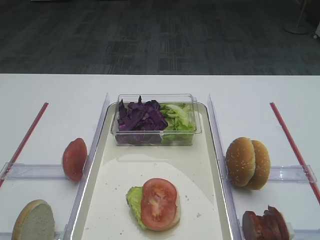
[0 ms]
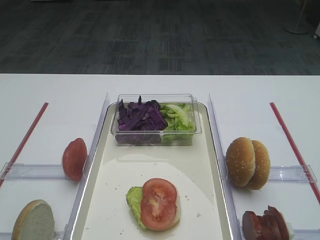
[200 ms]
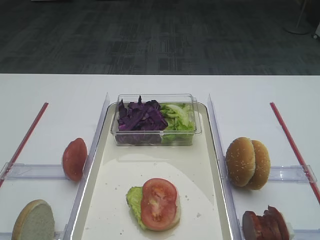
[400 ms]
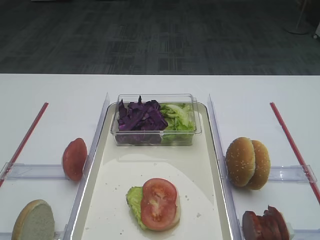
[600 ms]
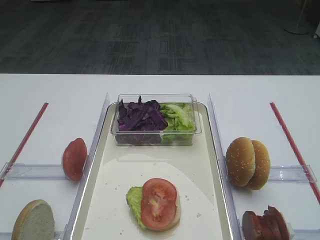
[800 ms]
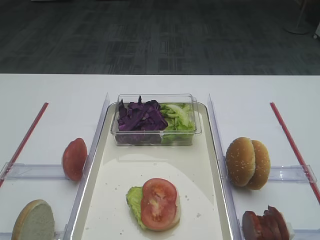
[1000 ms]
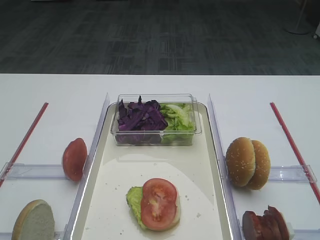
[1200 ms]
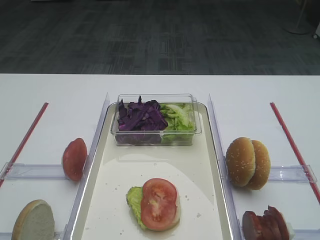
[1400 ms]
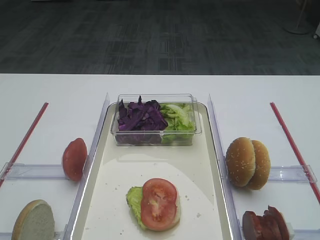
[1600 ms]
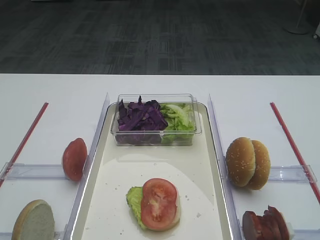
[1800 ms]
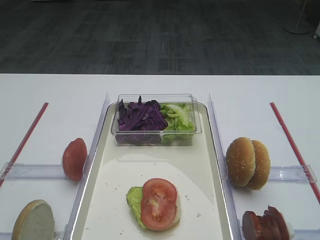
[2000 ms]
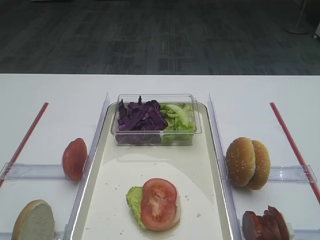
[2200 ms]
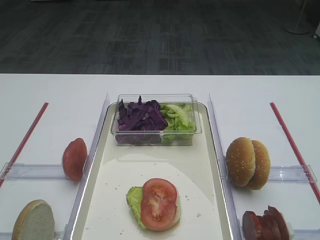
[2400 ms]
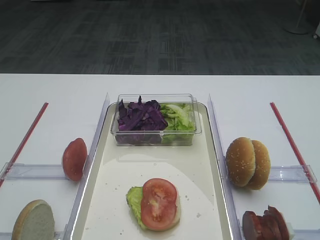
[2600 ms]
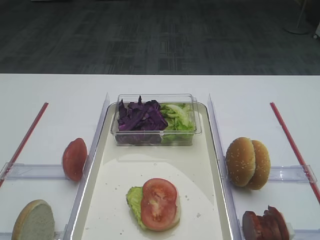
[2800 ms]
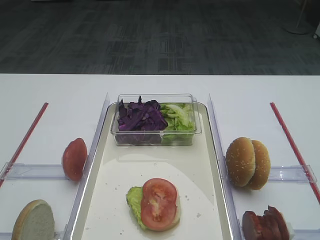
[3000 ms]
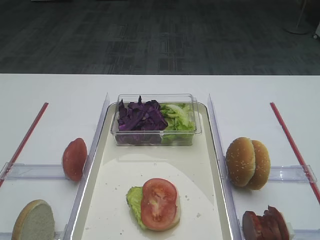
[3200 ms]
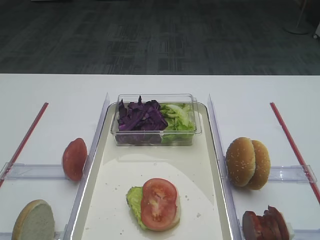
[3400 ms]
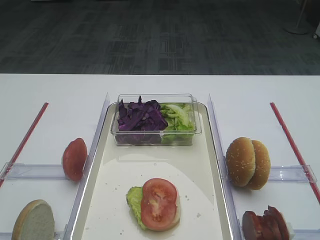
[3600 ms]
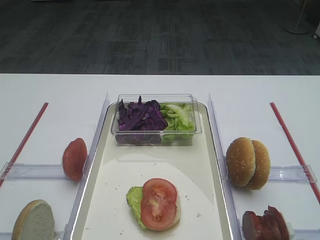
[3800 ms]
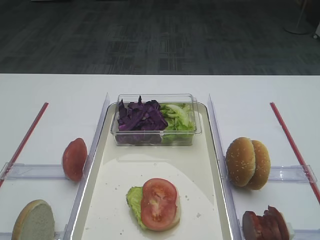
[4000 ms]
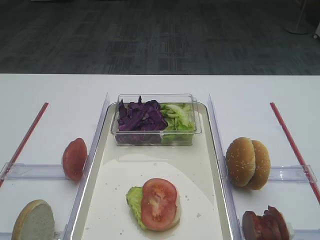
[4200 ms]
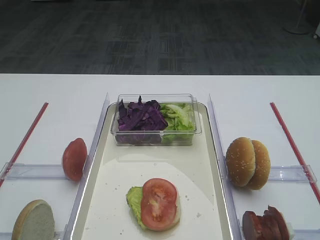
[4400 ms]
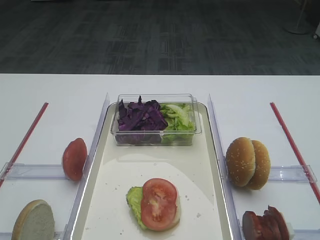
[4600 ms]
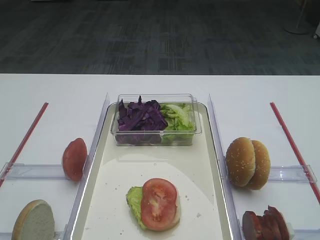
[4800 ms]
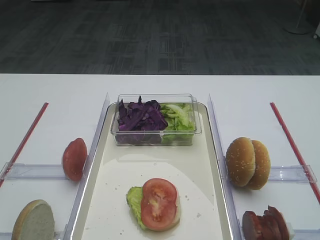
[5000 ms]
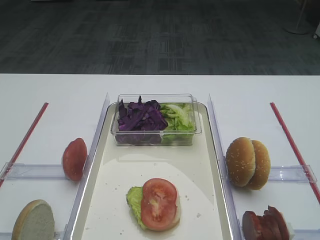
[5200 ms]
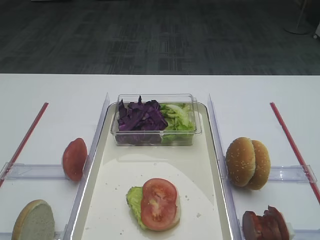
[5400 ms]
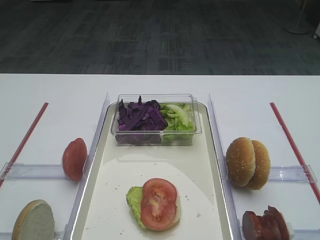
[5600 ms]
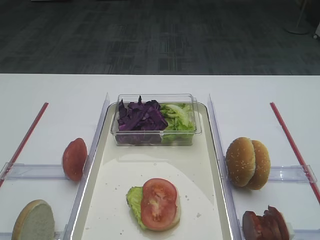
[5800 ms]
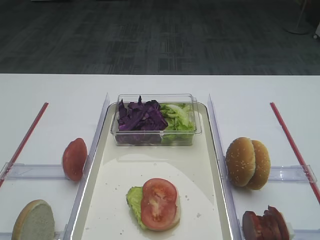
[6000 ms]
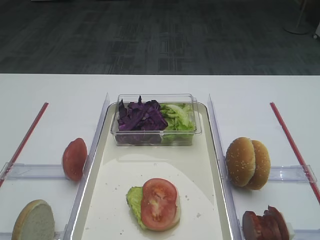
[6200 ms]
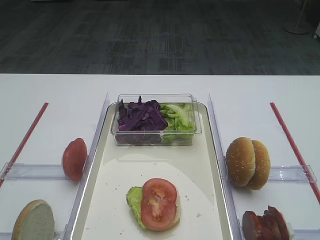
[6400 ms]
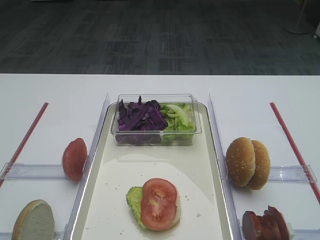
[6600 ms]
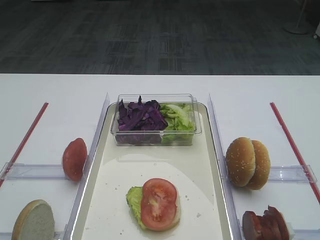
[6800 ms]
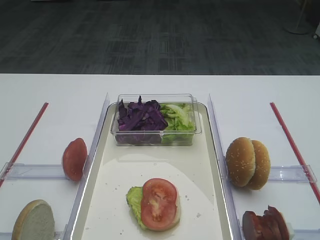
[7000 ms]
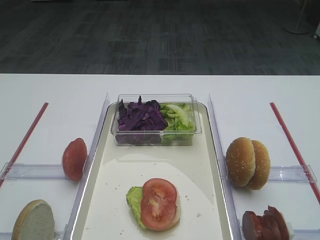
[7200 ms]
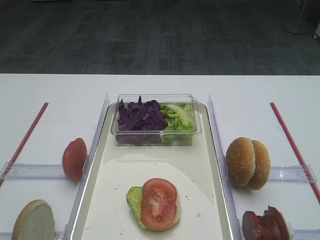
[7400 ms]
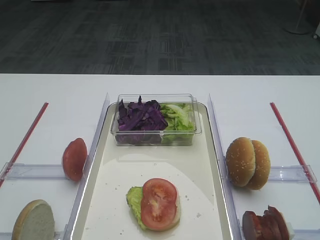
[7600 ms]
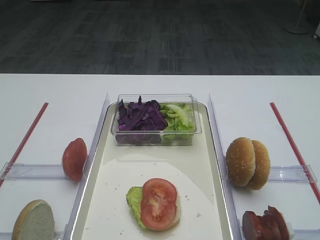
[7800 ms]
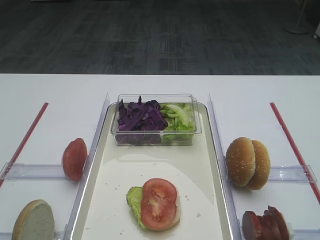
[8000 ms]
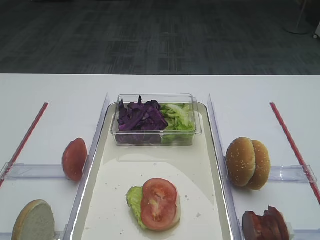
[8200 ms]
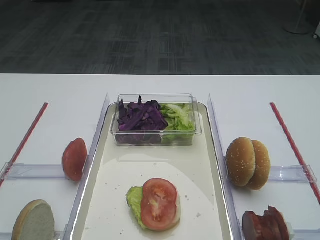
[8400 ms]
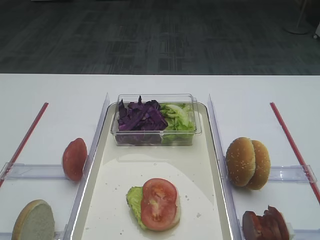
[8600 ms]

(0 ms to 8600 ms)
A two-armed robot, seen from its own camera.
0 ms - 8600 ms: The two grippers keep their place.

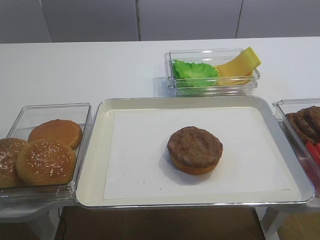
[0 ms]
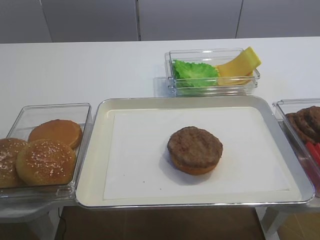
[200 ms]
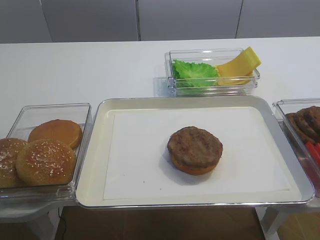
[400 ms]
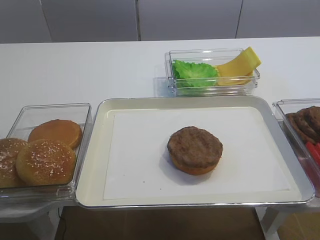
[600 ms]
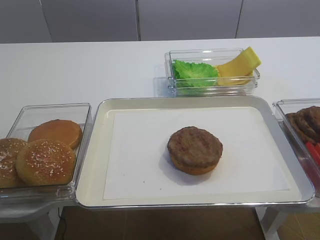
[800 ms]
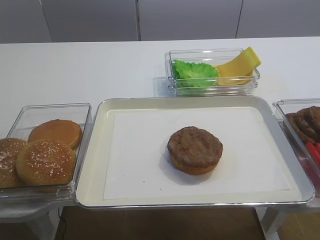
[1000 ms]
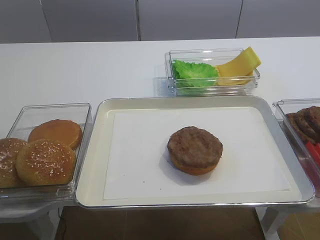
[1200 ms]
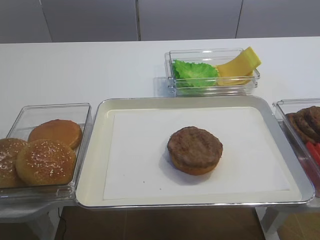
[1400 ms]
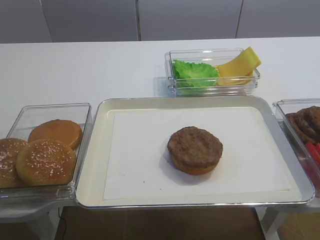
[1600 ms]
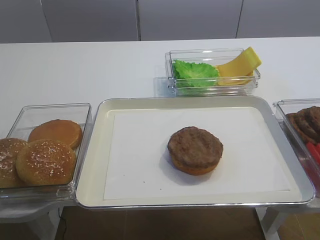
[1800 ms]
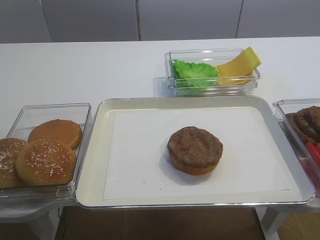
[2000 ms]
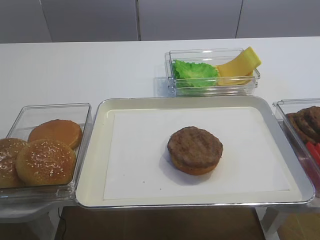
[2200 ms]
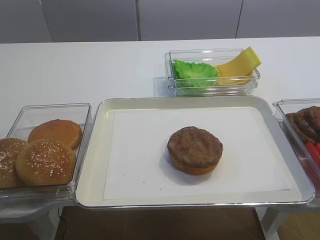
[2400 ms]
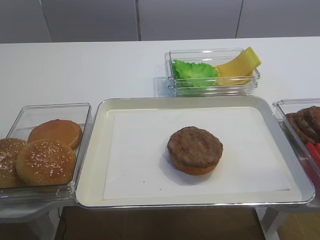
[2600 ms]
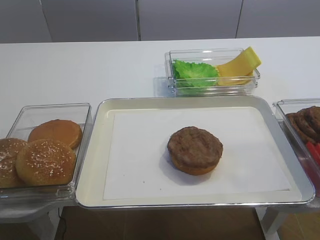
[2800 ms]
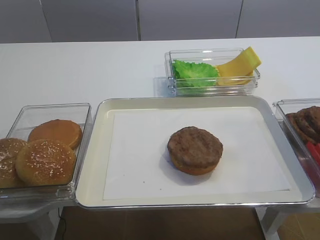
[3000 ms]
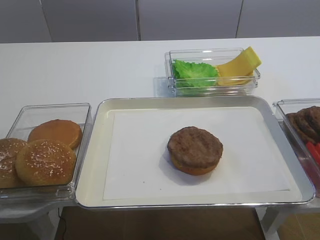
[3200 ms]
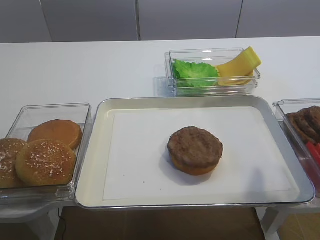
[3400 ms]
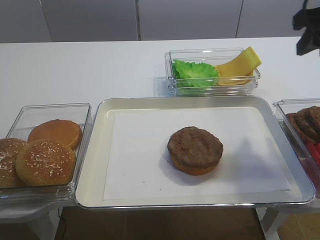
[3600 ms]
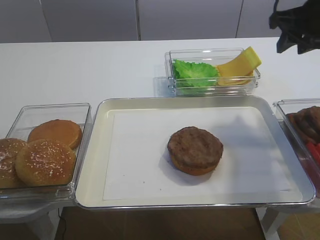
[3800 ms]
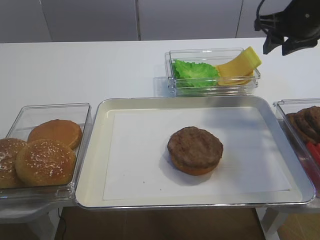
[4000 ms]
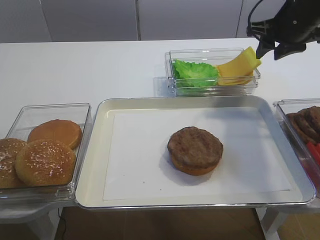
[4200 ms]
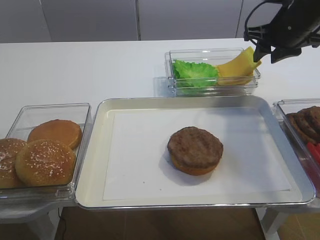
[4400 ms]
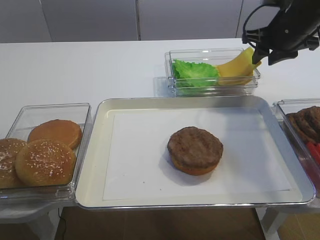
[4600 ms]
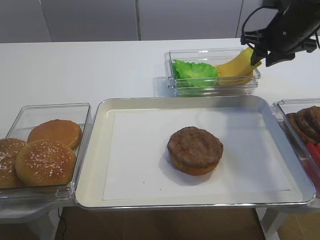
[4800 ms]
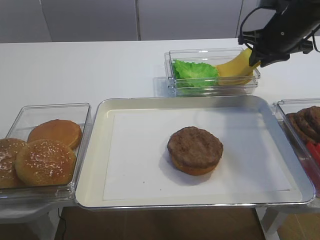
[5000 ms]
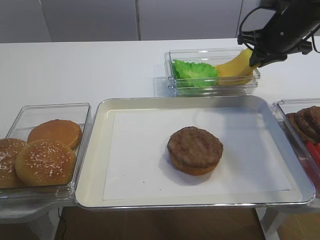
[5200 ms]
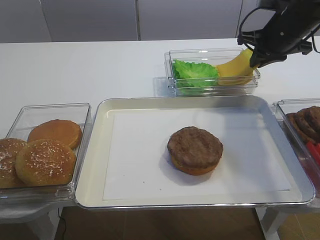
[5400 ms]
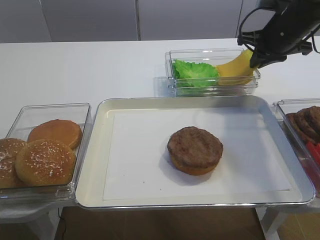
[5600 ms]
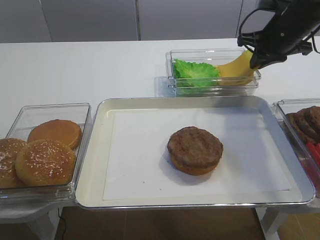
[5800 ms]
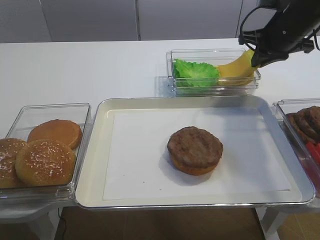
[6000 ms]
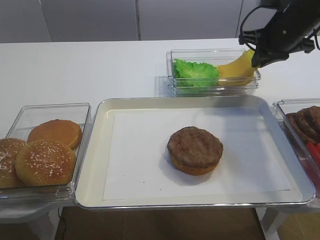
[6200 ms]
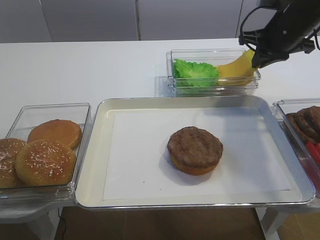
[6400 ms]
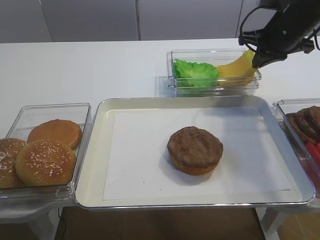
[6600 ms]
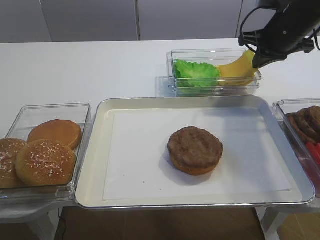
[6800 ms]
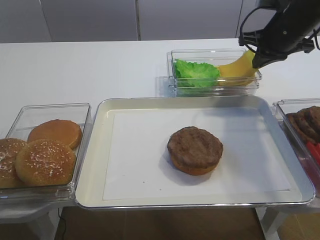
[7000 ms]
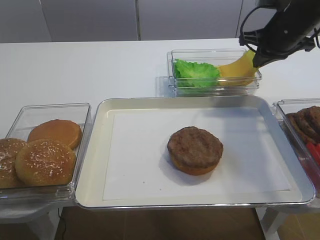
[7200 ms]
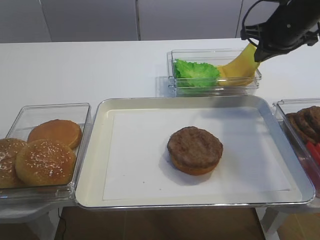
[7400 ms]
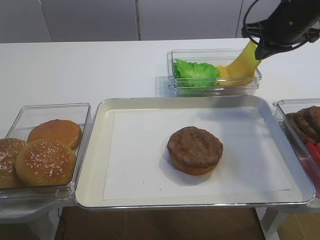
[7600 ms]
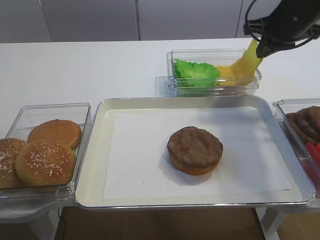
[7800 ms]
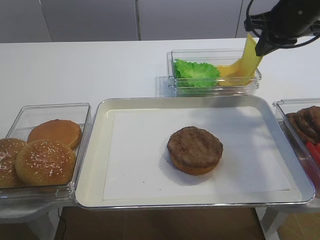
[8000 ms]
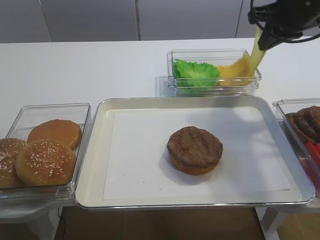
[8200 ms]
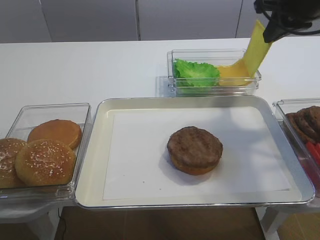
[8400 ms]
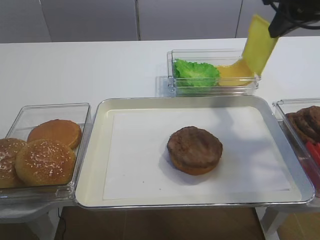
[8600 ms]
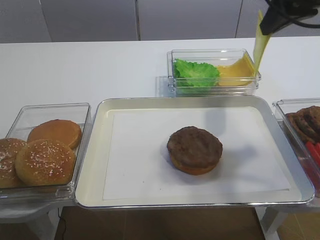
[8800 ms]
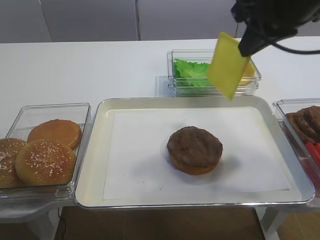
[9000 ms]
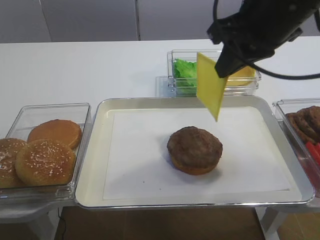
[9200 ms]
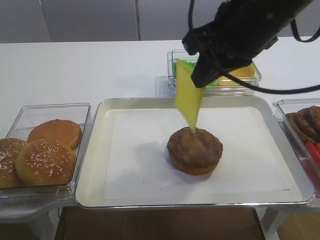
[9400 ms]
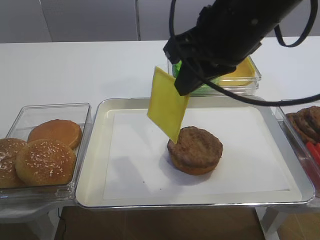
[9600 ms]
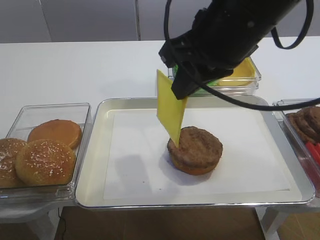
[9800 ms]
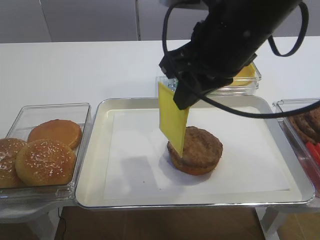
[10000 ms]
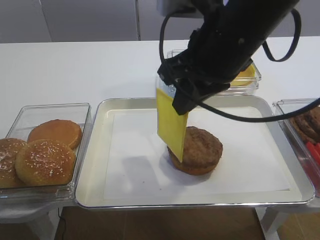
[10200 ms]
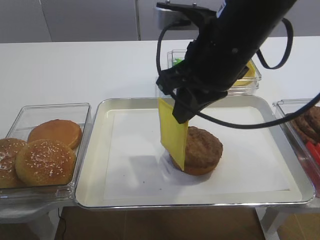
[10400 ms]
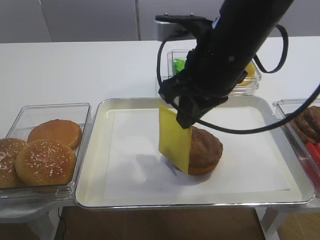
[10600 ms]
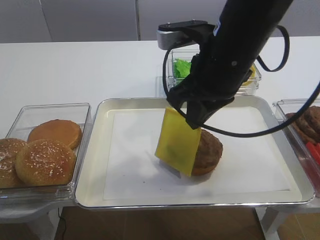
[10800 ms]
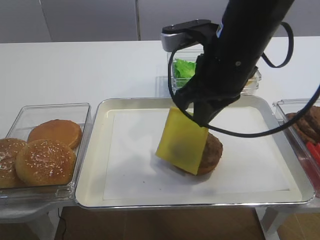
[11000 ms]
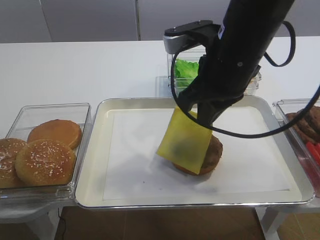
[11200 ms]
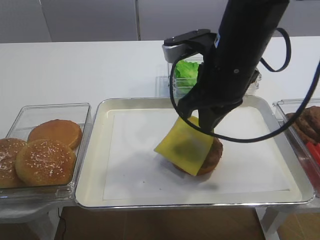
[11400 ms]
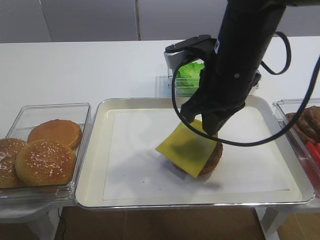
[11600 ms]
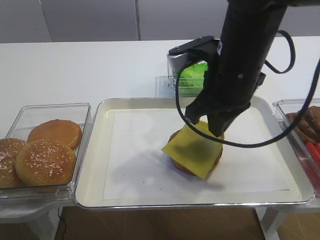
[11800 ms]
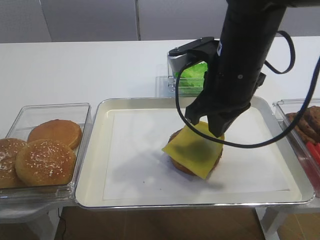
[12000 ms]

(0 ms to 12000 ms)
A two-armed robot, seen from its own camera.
Step, 0 ms - 7800 ms: Pick up the cheese slice with the right gripper.
3000 ms - 4400 ms: The right gripper travels forward by about 30 cm.
4400 ms - 6000 ms: The right gripper closes up.
6000 ms - 7600 ms: The grippers move only a little.
7600 ms - 9000 ms: The right gripper travels backward, upward and to the left by roughly 15 cm.
9000 ms - 10400 ms: The right gripper moves to the left and backward, approximately 10 cm.
10400 ms - 12000 ms: The right gripper ends up some 5 cm from where it was.

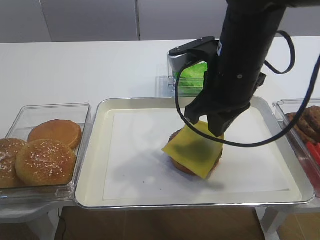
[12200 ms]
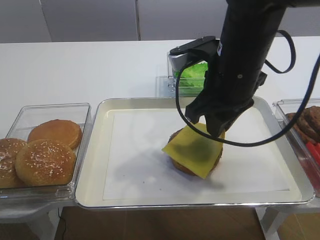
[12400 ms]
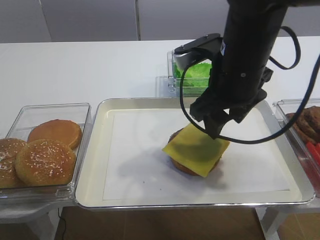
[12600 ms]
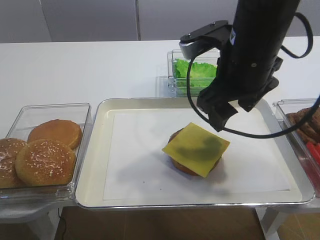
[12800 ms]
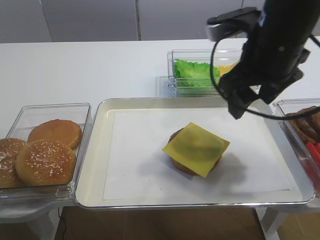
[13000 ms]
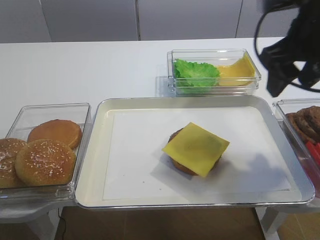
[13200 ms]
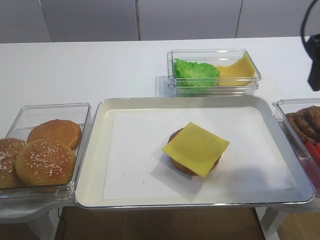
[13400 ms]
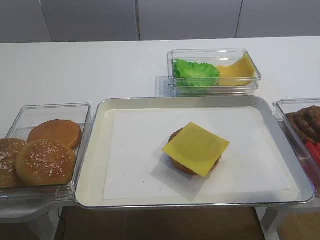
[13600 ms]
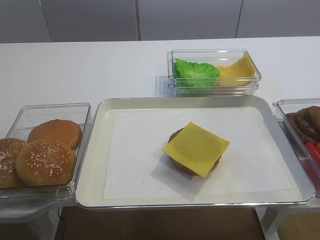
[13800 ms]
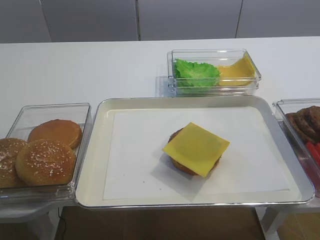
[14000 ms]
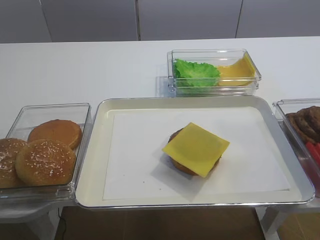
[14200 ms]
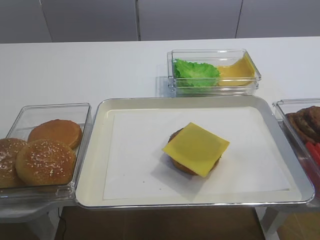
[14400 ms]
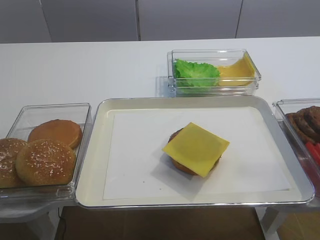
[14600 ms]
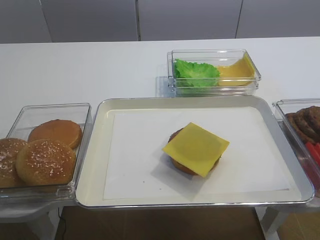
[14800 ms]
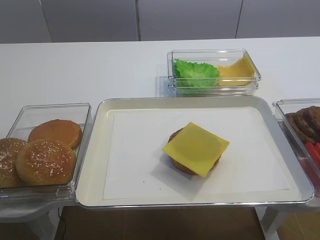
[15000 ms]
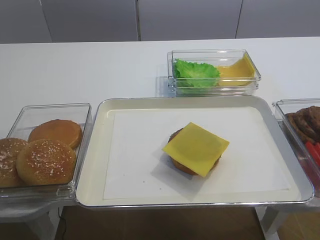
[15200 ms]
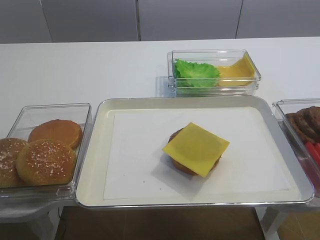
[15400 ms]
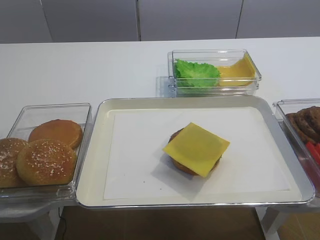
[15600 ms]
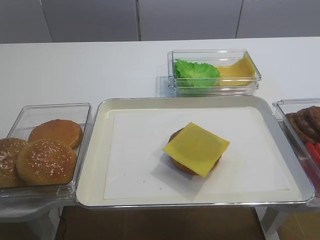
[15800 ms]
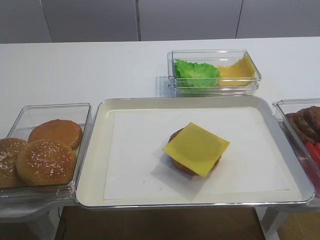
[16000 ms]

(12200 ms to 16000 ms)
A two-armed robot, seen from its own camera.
12200 ms - 13400 ms: The right gripper heads to the right and upward, covering approximately 15 cm, and opens.
13400 ms - 14800 ms: The right gripper goes about 25 cm backward.
